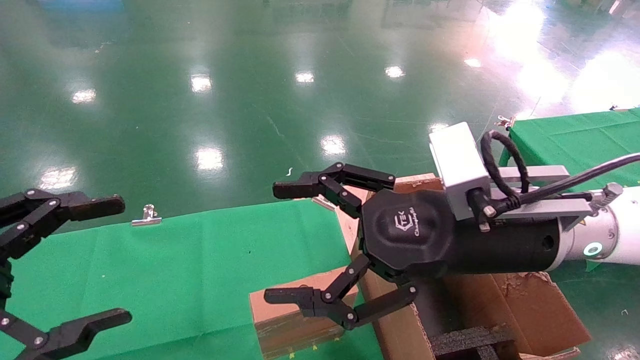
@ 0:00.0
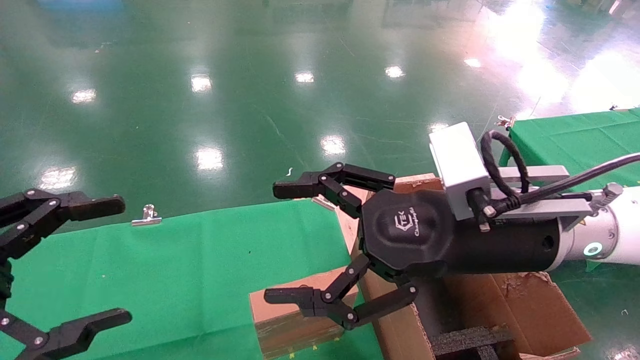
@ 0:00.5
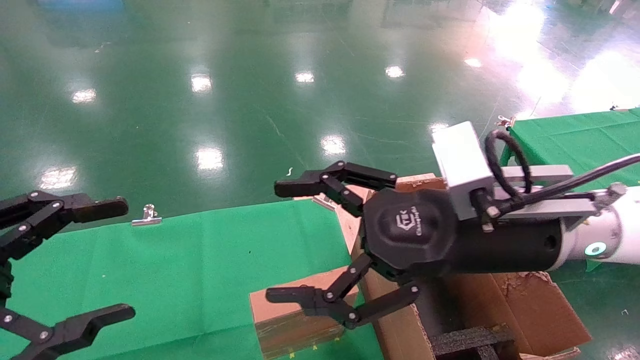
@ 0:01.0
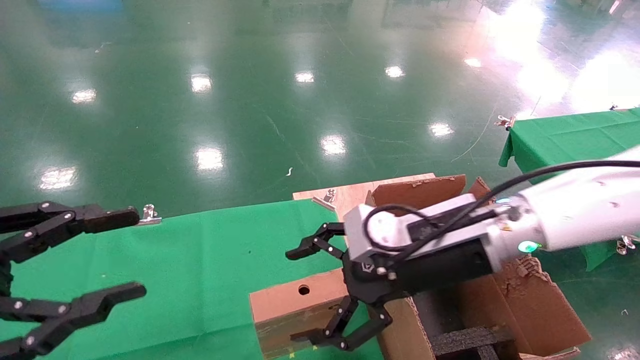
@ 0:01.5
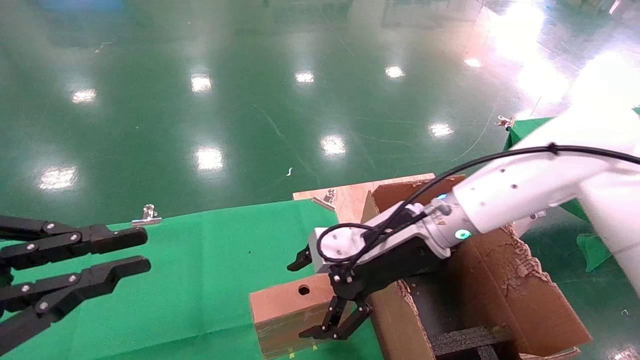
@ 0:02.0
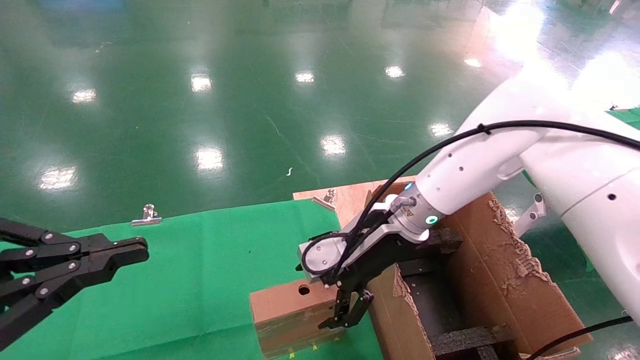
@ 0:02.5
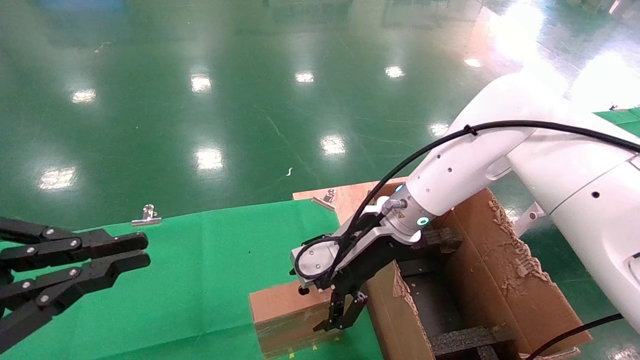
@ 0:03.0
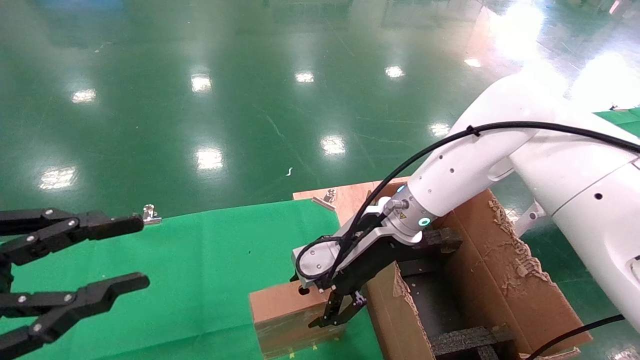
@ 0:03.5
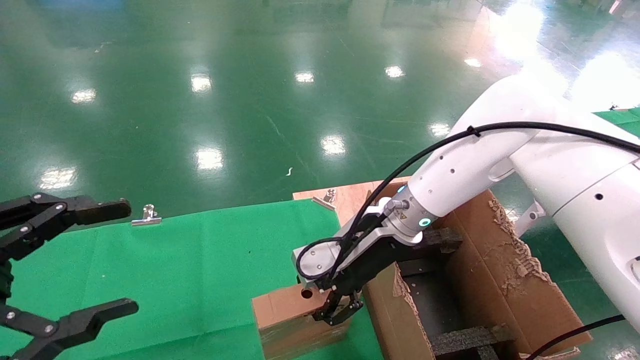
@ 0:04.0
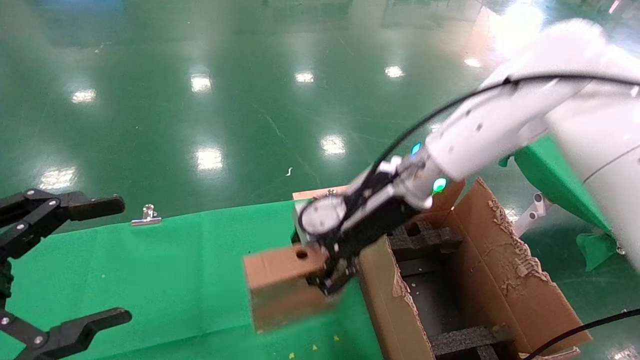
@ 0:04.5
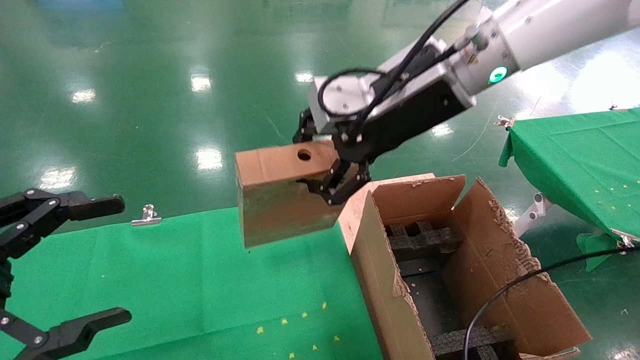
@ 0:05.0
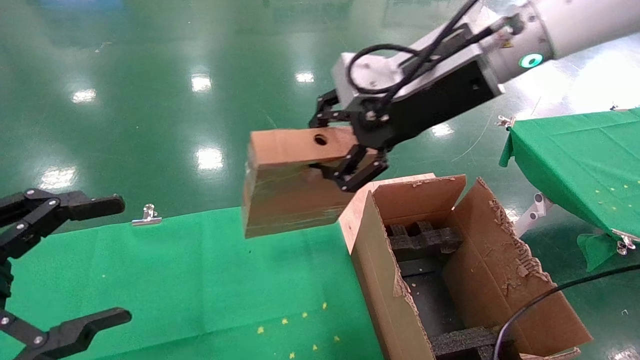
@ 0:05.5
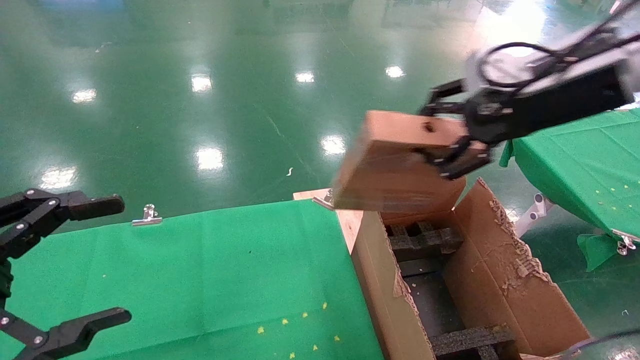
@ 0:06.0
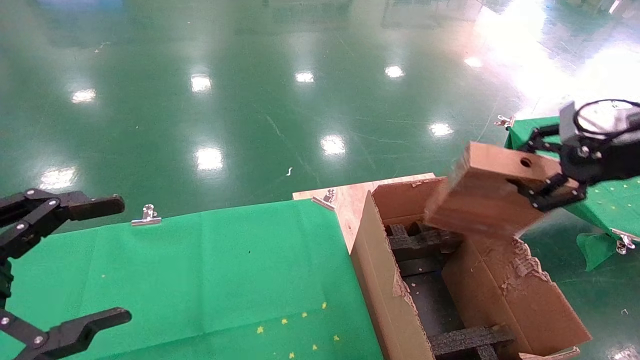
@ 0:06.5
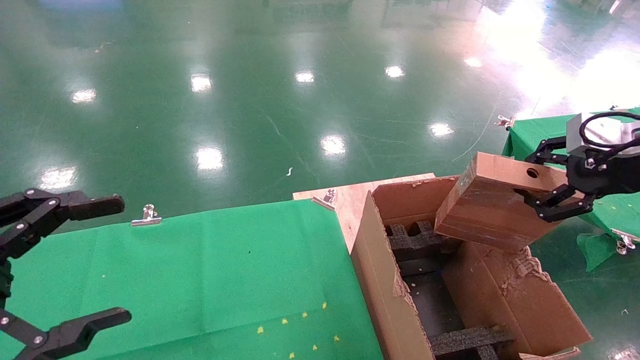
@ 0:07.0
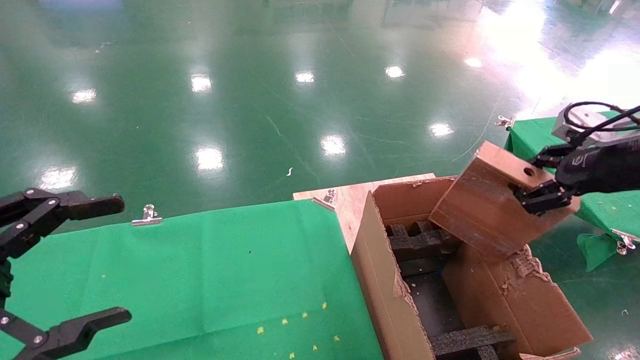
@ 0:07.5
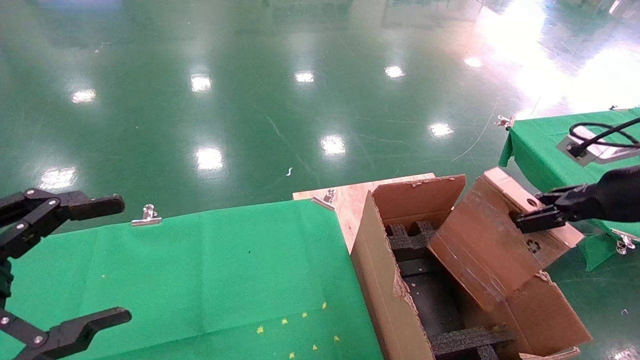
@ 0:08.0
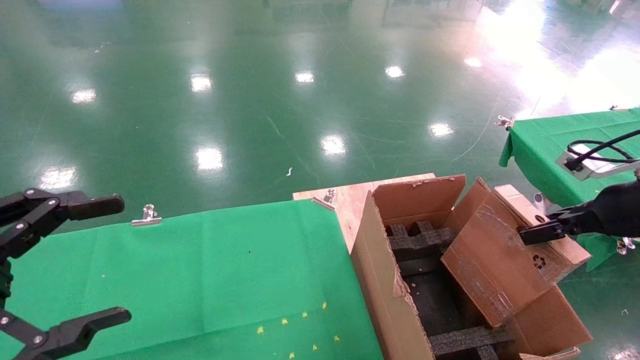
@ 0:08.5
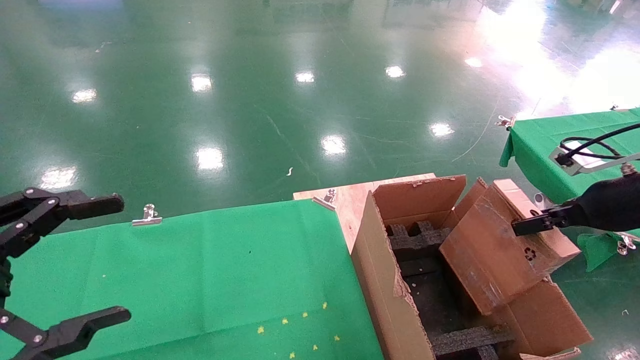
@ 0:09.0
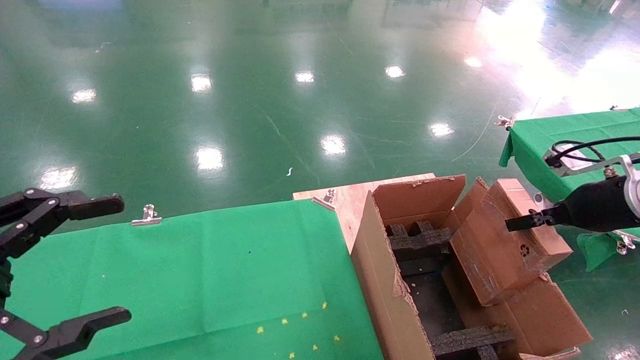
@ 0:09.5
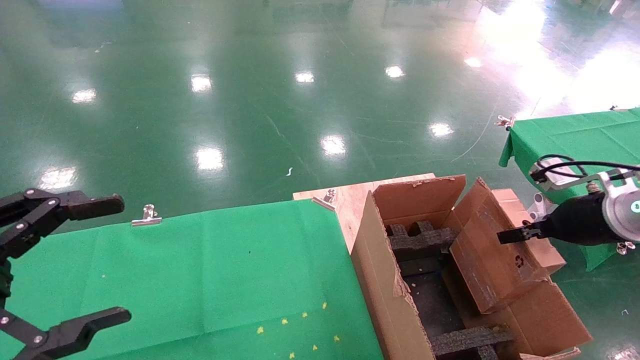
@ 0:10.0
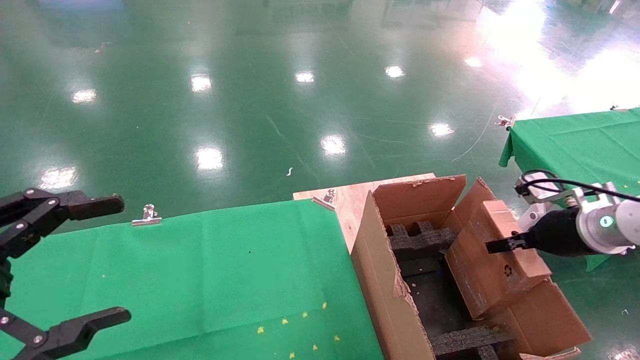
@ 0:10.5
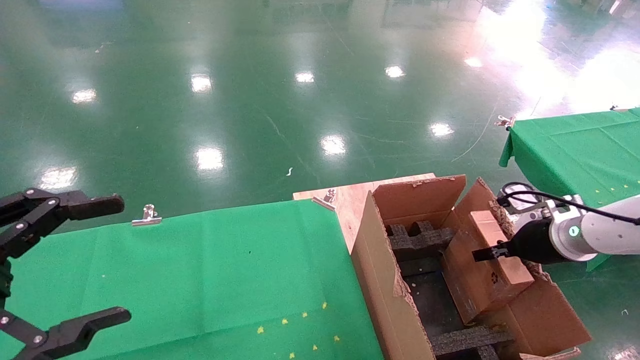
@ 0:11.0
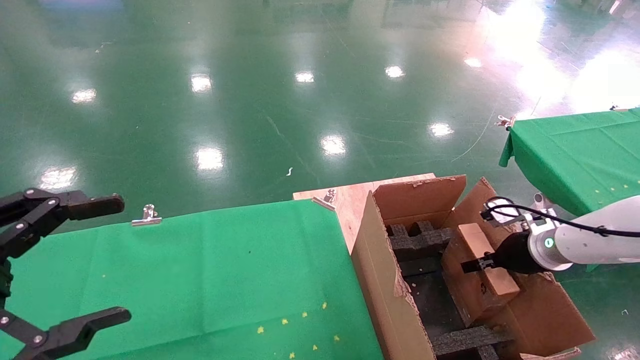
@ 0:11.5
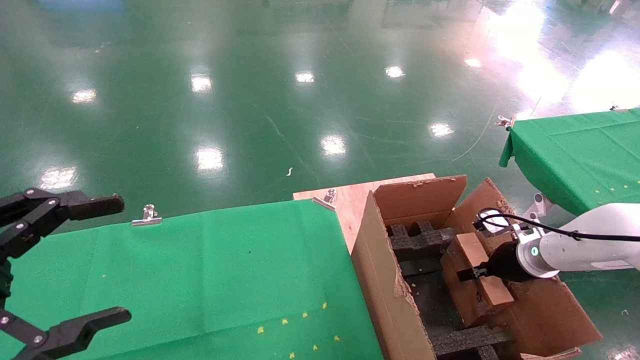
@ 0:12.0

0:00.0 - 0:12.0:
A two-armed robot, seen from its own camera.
Task of the whole recording: using a robotic arm to pick up a cardboard box and palace it the carton.
Step, 0:01.5 - 0:04.0: Pick up the mouse and the power cord paper box.
0:00.0 - 0:02.0: The right gripper goes about 10 cm forward and downward; the left gripper closes its fingers.
0:02.0 - 0:04.0: The left gripper opens. The right gripper closes its fingers.
0:04.0 - 0:06.0: The right gripper travels to the right, upward and backward by roughly 30 cm.
0:06.0 - 0:08.0: The right gripper goes about 20 cm to the right and downward.
0:08.0 - 0:10.0: The right gripper travels downward by some 5 cm.
0:10.0 - 0:12.0: The right gripper moves downward and forward, some 15 cm.

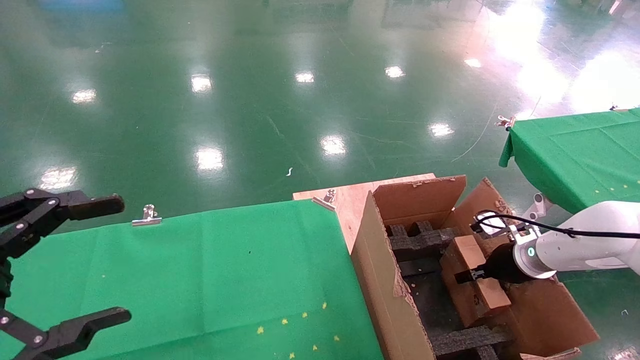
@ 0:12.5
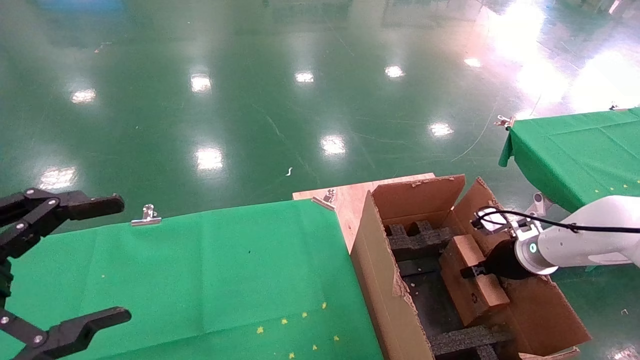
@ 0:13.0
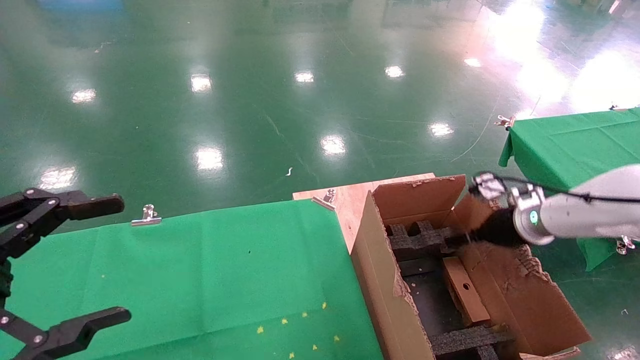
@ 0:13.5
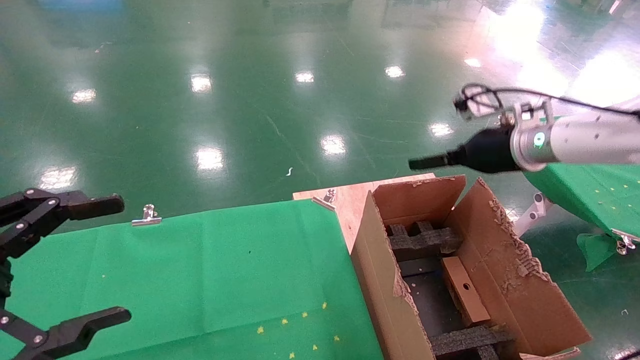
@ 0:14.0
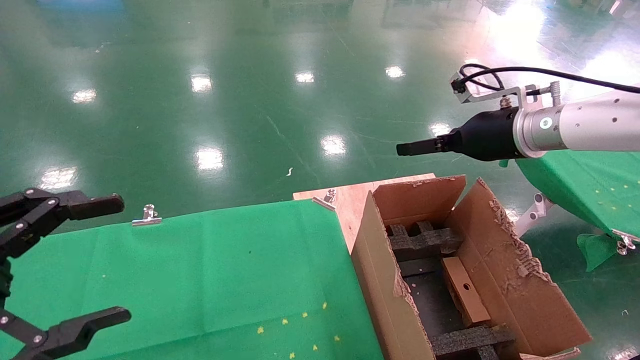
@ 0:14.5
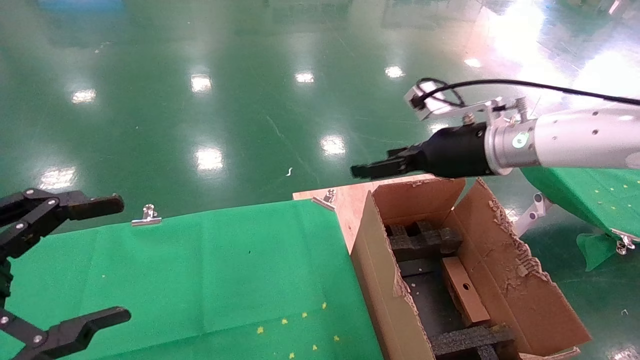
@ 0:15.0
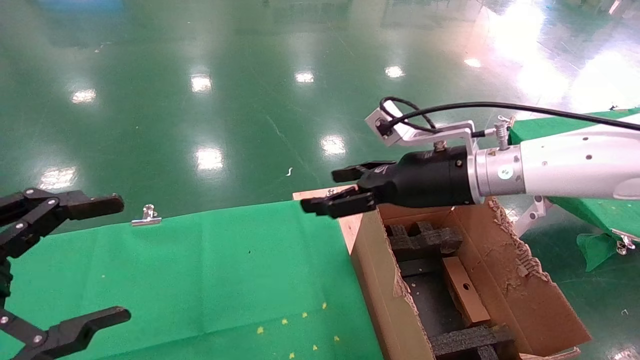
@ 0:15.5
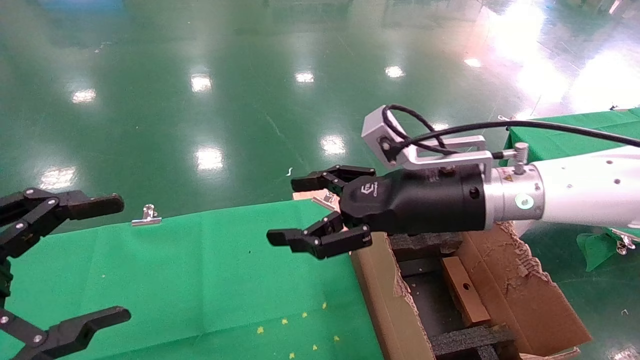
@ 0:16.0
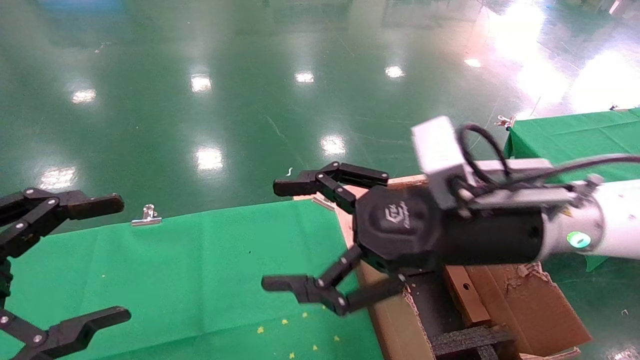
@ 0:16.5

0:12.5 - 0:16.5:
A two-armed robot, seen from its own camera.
Task of the whole recording: using a robotic arm to pick up a cardboard box and palace it the carton.
0:12.5 - 0:14.5: The right gripper heads upward, covering roughly 25 cm, and opens.
0:14.5 - 0:16.5: The right gripper heads backward and to the left, covering about 20 cm.

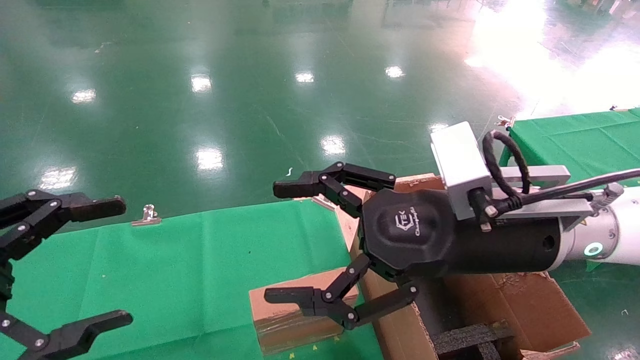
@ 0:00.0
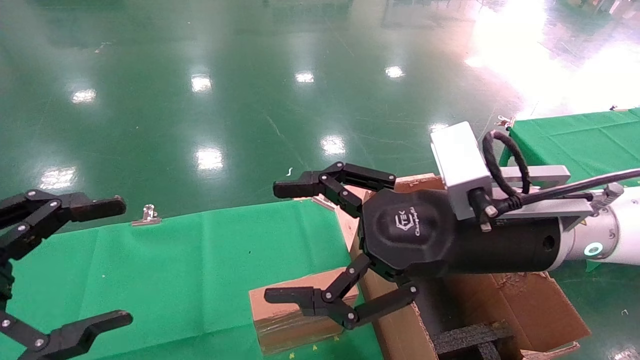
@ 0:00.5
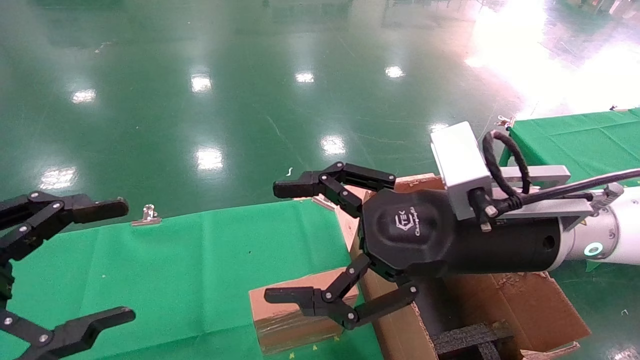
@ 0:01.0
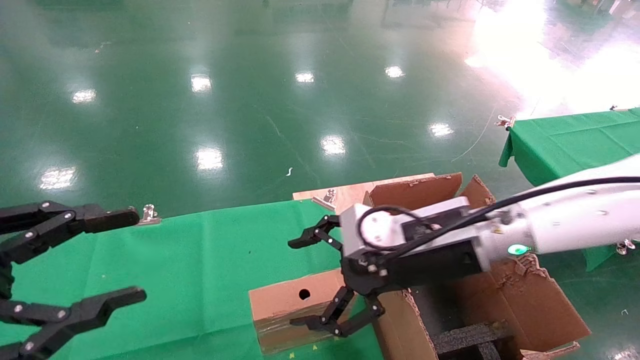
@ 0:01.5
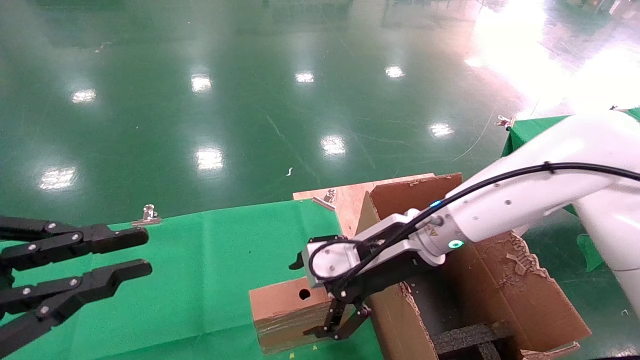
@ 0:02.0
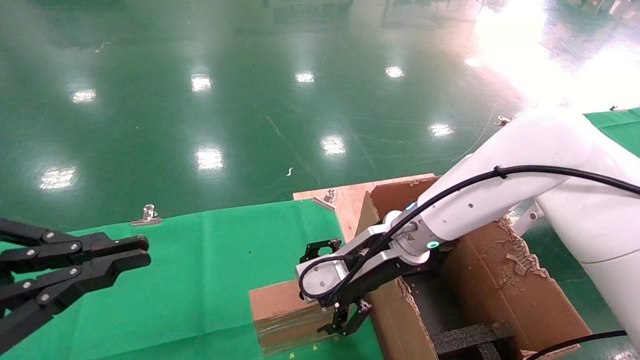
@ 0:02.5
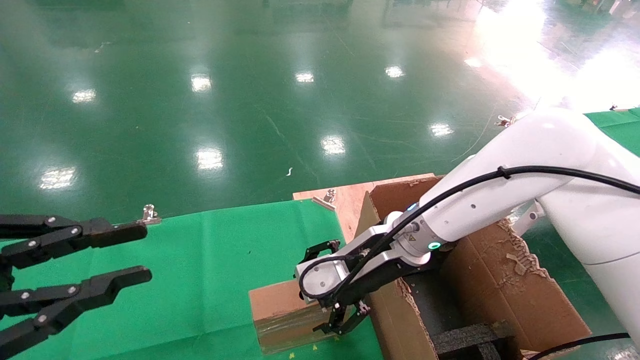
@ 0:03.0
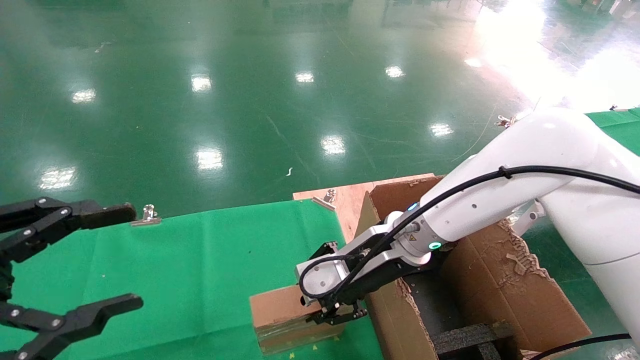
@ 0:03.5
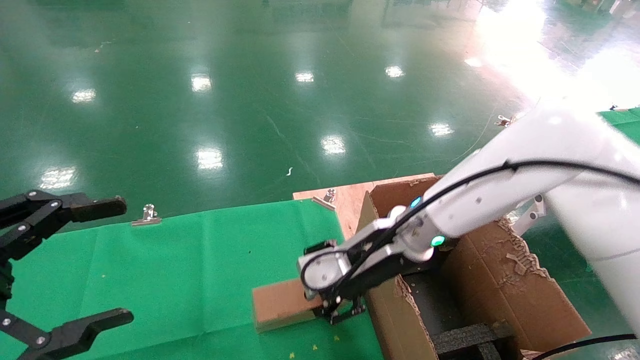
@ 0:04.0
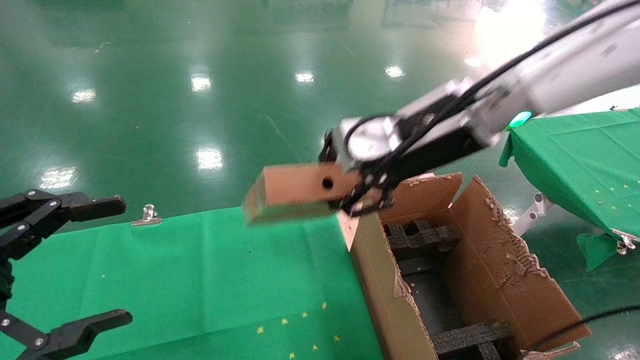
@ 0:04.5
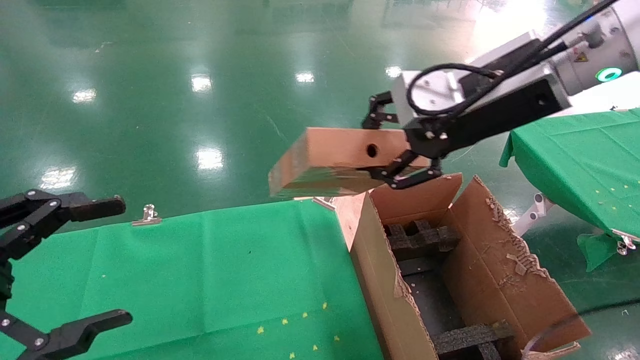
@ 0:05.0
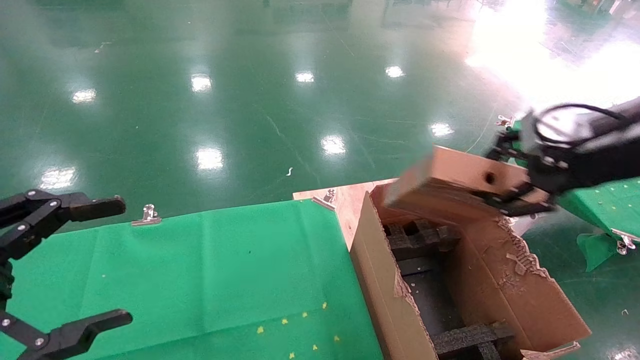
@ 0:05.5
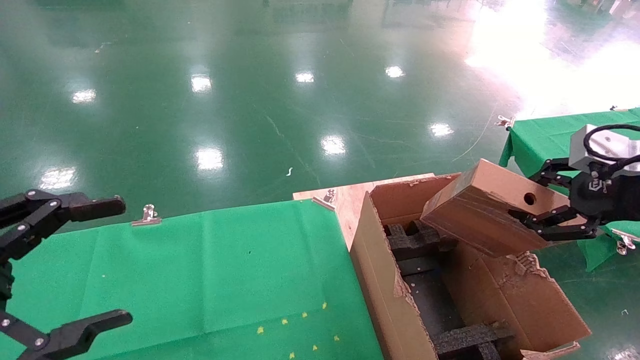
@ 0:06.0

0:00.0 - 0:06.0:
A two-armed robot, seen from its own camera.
Task of the whole recording: using a robotic arm to pick up a cardboard box and palace it the carton.
Step, 0:01.5 - 0:03.5: Pick up the mouse and the power cord paper box.
0:00.0 - 0:02.0: The right gripper travels forward and downward by some 10 cm. Meanwhile the left gripper closes up.
0:02.0 - 0:04.0: The right gripper closes its fingers. The left gripper opens its fingers.
0:04.0 - 0:06.0: The right gripper is displaced to the right and backward by approximately 30 cm.
